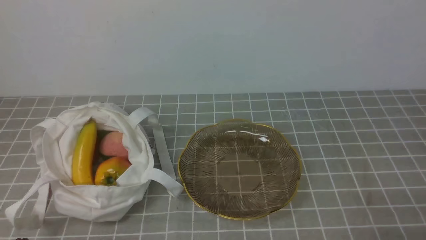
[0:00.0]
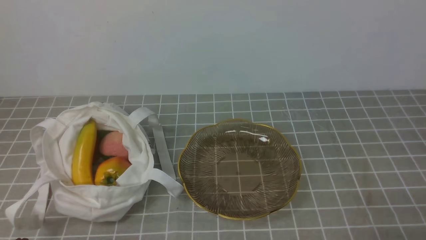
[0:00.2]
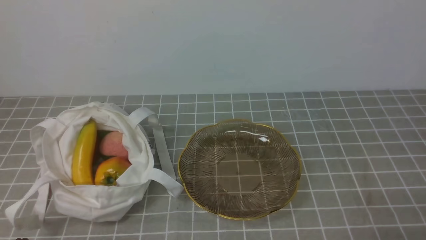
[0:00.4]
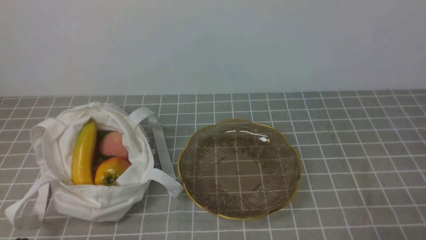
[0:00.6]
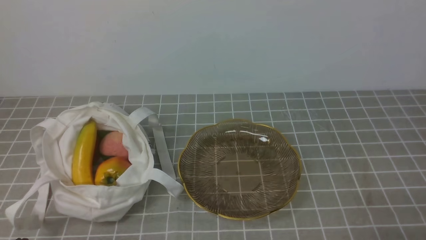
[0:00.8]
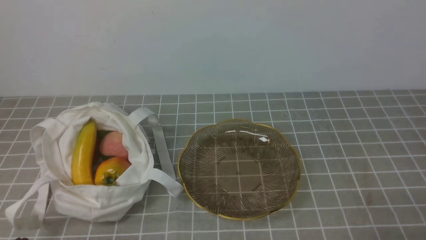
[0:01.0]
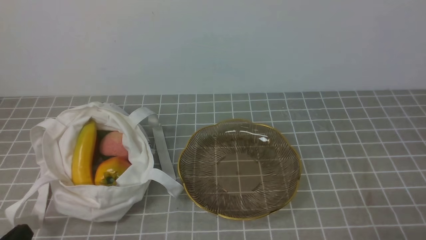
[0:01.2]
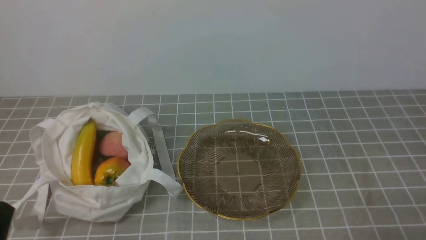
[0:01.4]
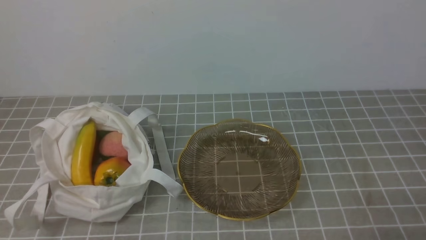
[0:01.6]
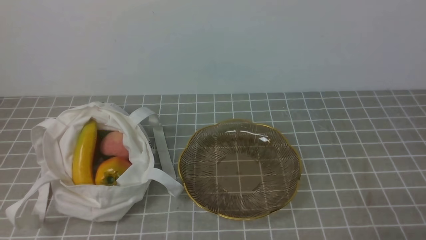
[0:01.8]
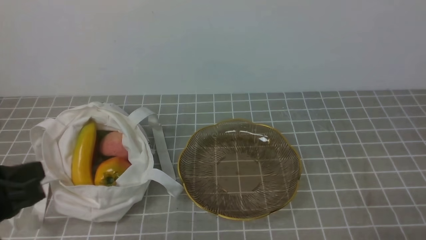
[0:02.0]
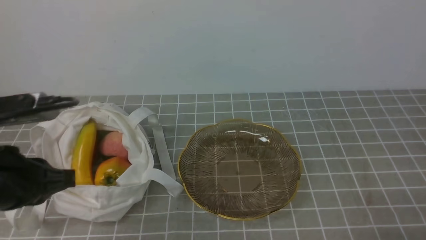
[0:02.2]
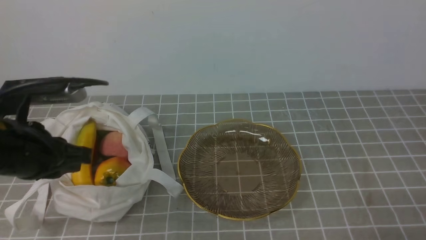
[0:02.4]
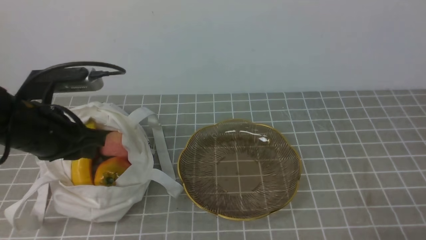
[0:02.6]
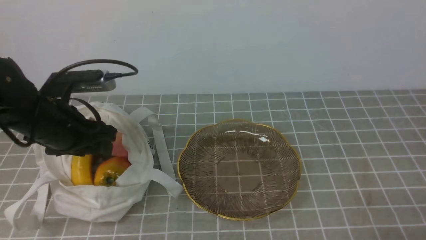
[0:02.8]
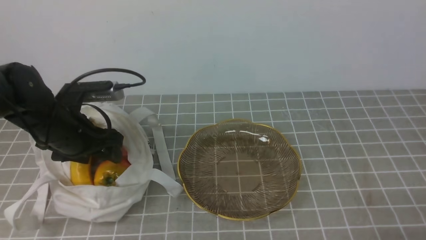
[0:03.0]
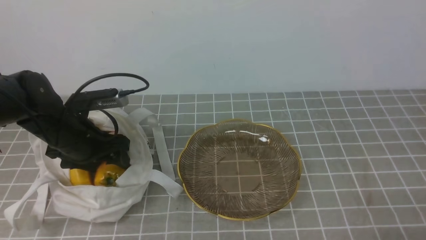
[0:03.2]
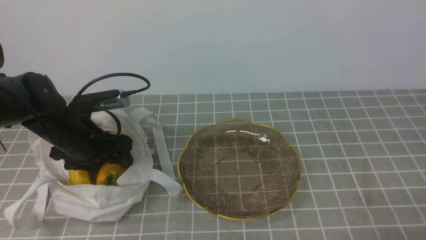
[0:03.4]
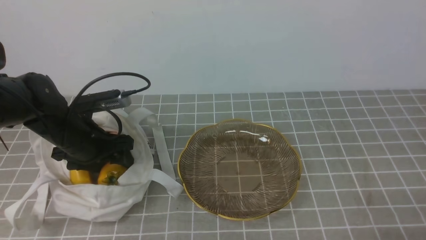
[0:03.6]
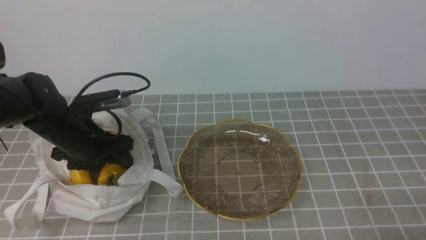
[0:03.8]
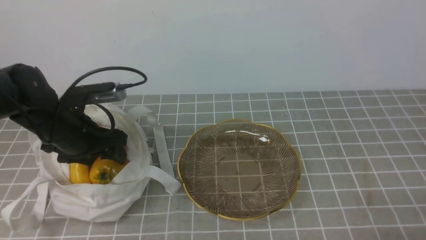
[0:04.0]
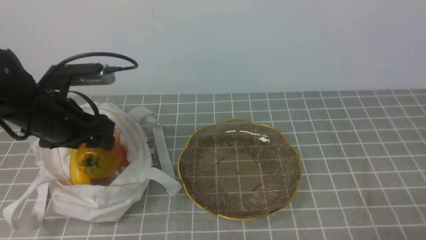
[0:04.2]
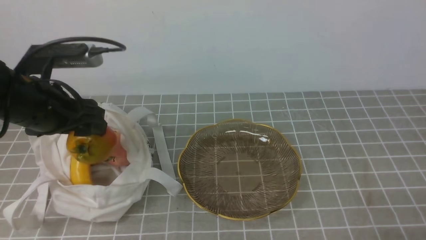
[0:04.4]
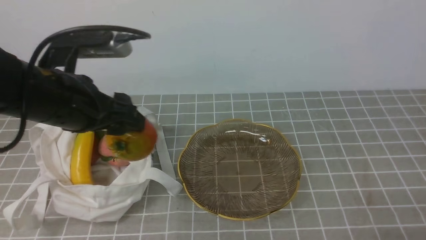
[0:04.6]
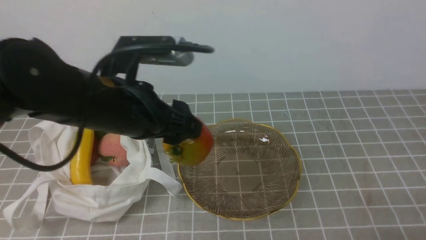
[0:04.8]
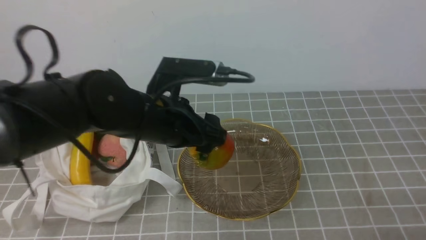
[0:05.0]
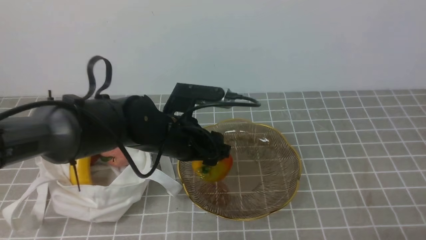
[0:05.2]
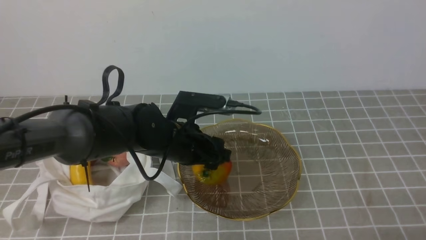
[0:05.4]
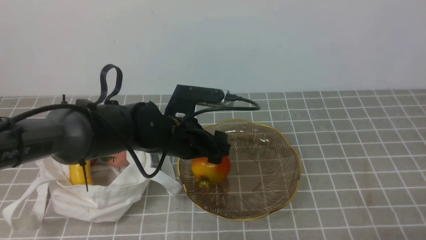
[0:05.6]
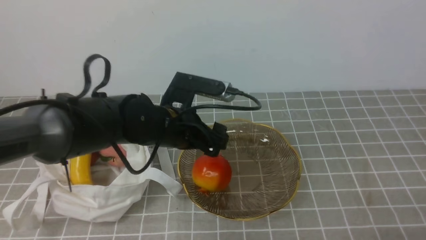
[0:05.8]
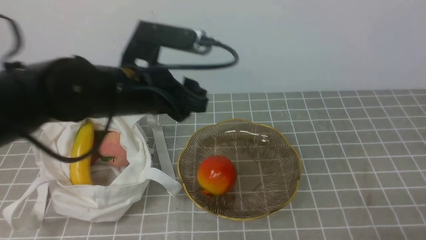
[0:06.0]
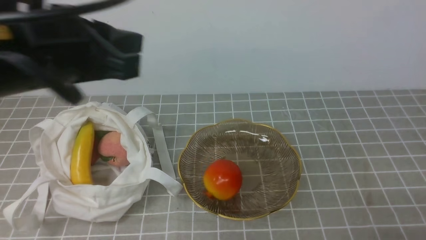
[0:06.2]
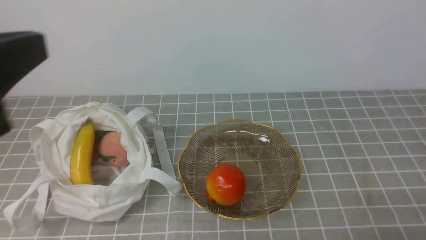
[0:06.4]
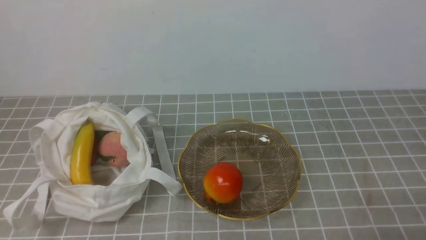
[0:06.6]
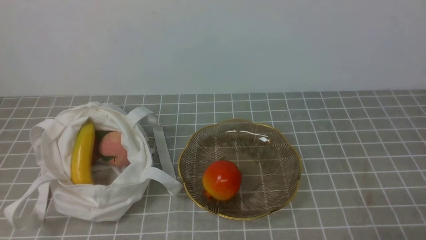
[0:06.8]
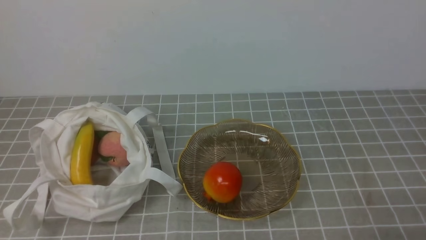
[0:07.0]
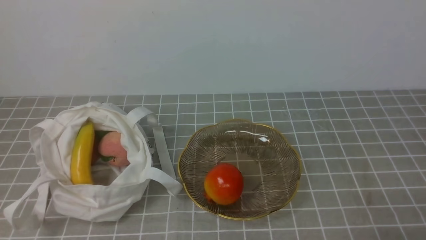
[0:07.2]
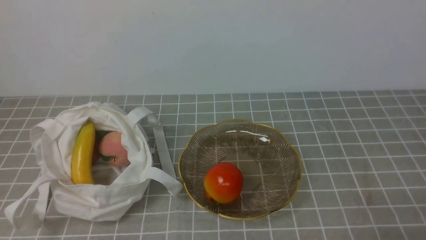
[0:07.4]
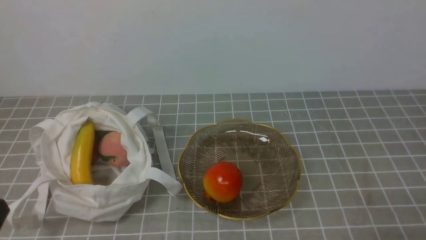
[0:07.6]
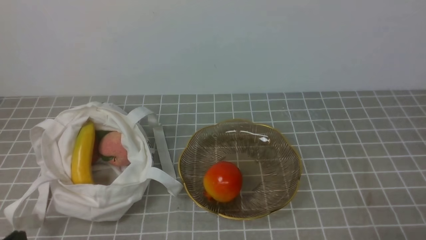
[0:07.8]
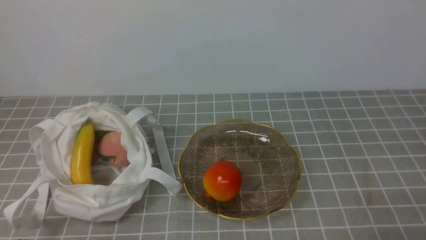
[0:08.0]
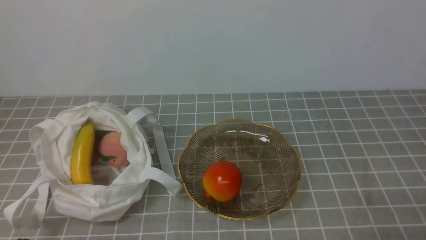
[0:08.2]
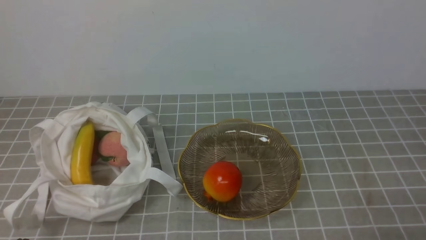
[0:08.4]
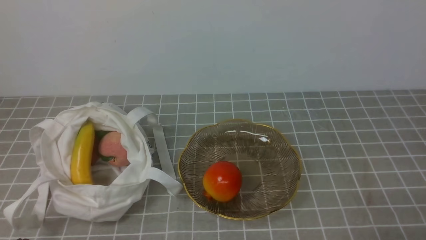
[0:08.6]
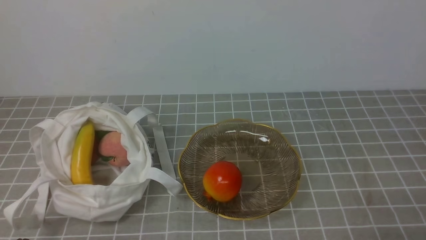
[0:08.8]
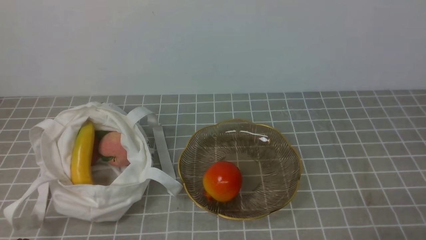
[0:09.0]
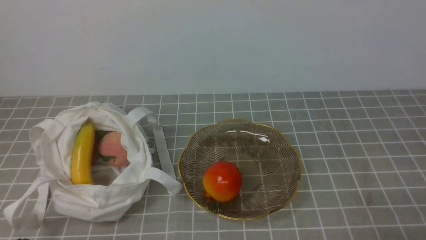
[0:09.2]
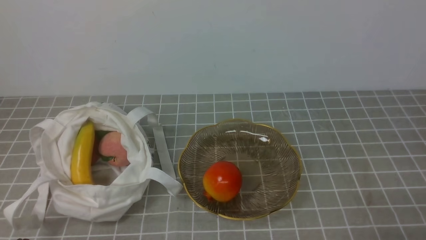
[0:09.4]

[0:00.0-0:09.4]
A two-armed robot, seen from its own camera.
Step, 0:00.0 to 0:03.8: use the left arm to grab a pomegranate from the bag.
Step, 0:04.2 to 0:05.4: use the left arm to put the pomegranate into the empty plate on the right.
0:01.6 to 0:03.2: The left gripper shifts some 30 cm forward, and opens.
0:03.2 to 0:04.8: The left gripper is displaced to the right, upward and backward by roughly 15 cm.
0:04.8 to 0:06.2: The left gripper shifts some 15 cm upward and backward, and closes up.
0:06.2 to 0:07.8: The left gripper heads downward, backward and to the left, covering roughly 25 cm.

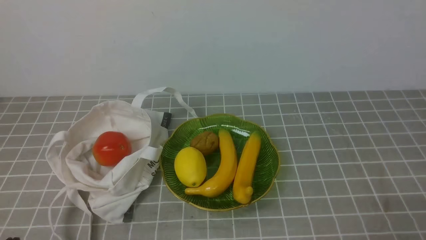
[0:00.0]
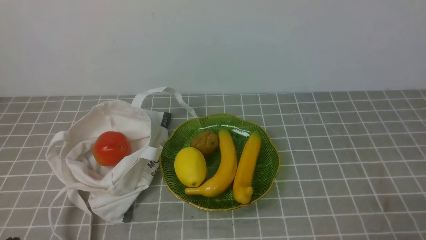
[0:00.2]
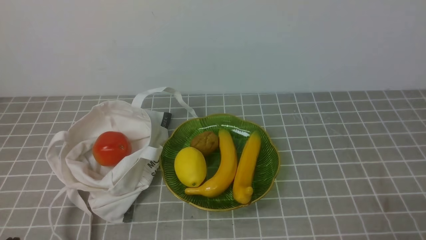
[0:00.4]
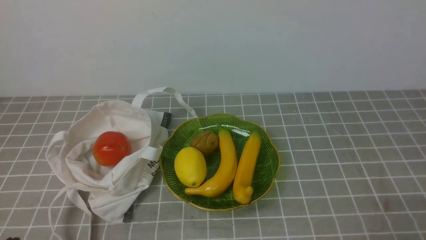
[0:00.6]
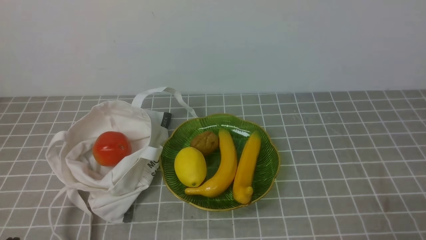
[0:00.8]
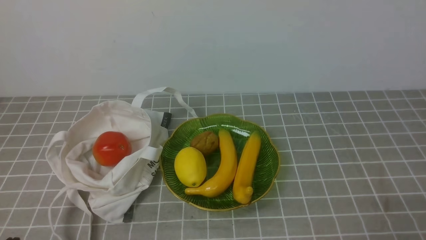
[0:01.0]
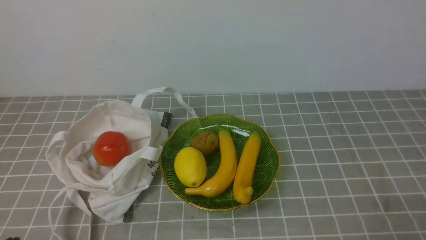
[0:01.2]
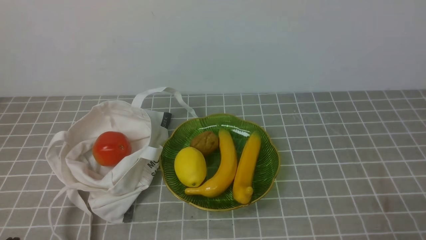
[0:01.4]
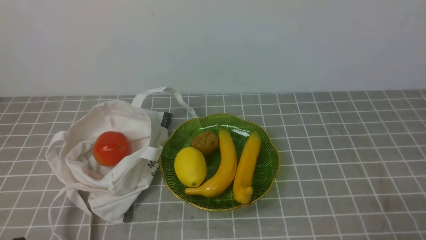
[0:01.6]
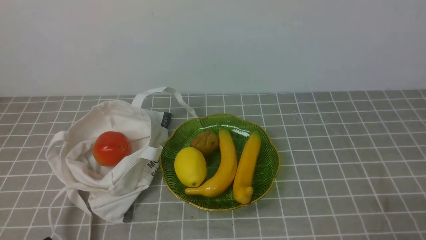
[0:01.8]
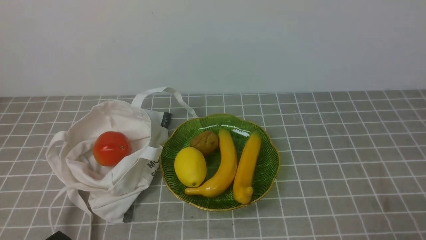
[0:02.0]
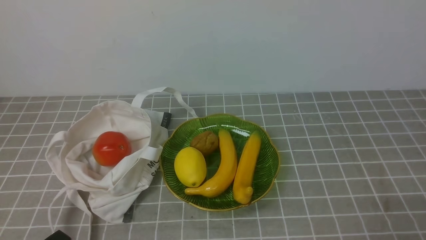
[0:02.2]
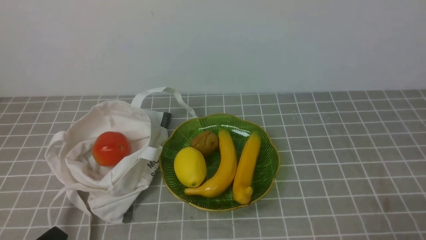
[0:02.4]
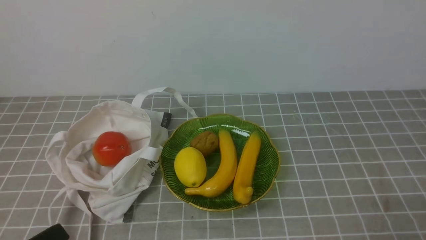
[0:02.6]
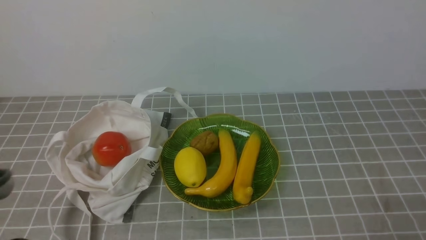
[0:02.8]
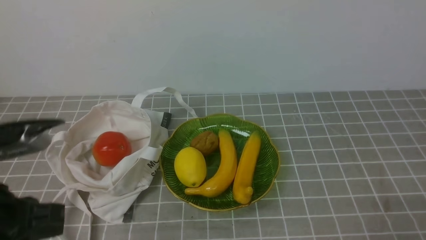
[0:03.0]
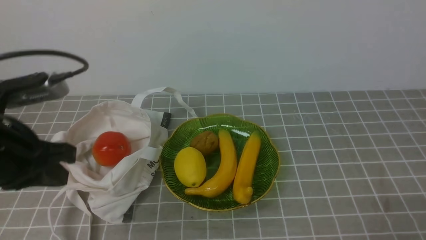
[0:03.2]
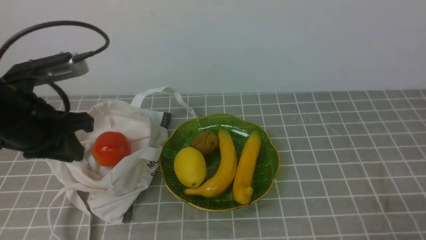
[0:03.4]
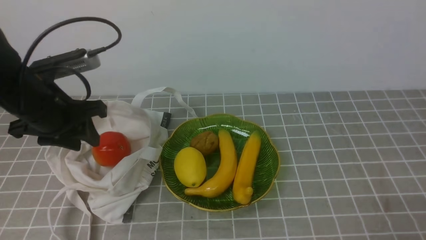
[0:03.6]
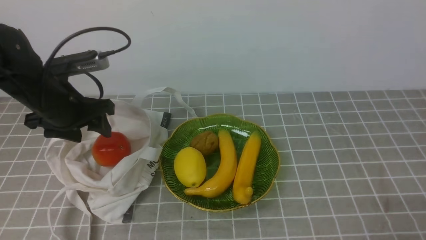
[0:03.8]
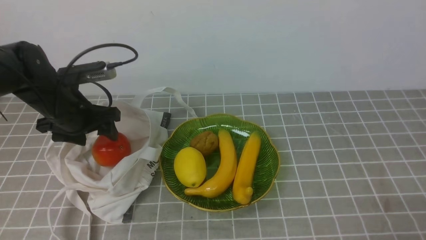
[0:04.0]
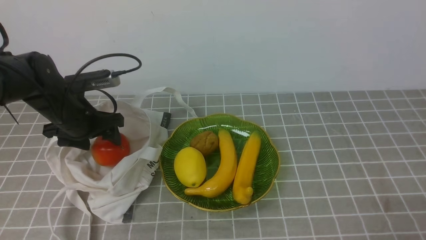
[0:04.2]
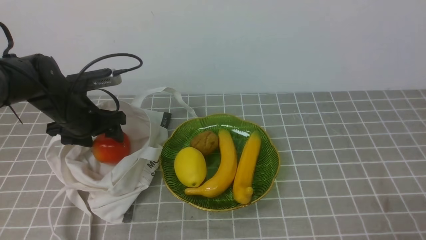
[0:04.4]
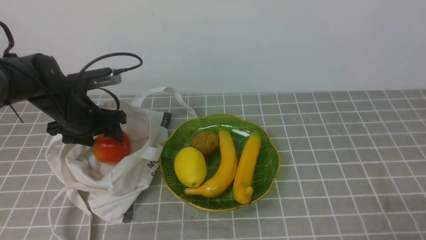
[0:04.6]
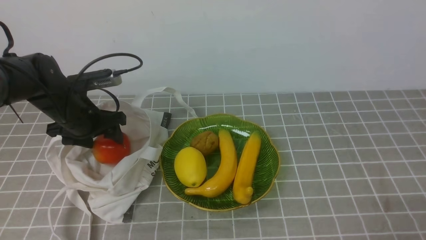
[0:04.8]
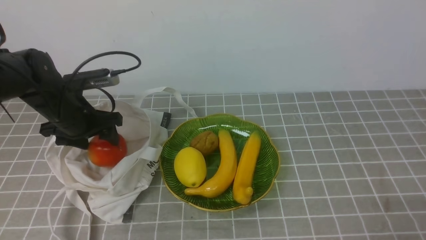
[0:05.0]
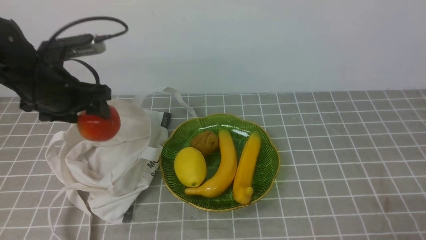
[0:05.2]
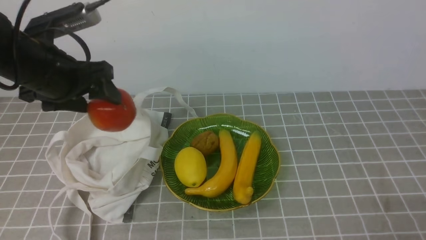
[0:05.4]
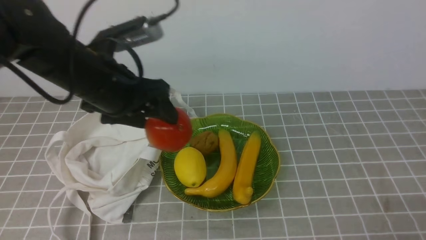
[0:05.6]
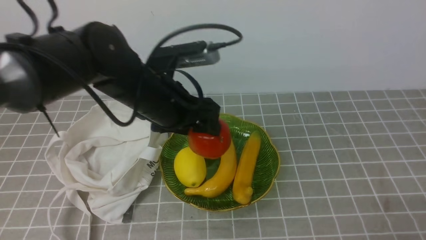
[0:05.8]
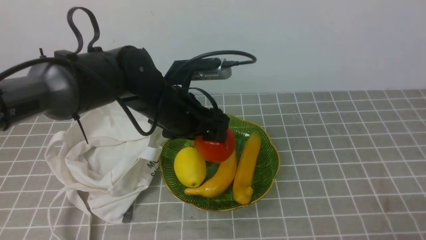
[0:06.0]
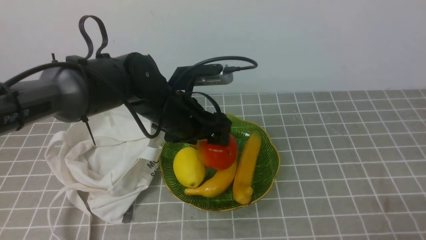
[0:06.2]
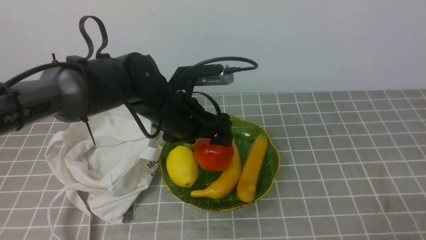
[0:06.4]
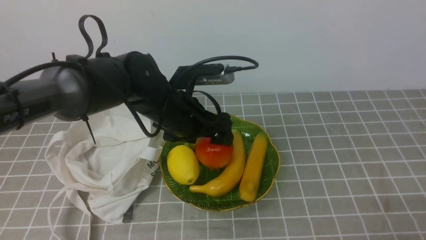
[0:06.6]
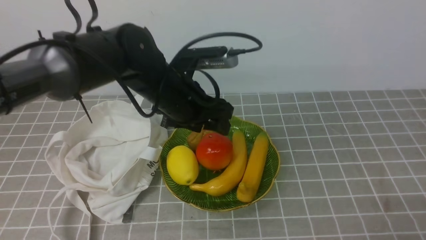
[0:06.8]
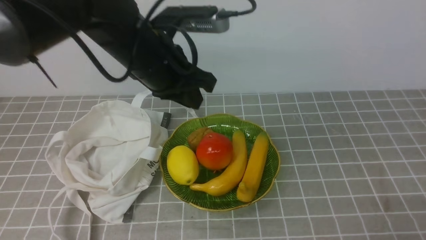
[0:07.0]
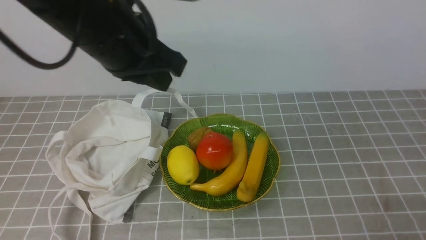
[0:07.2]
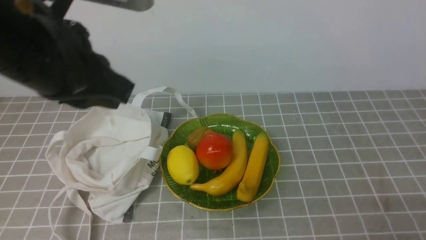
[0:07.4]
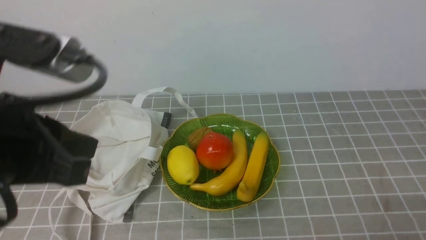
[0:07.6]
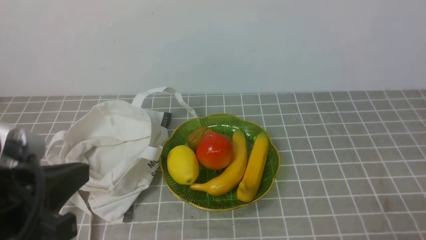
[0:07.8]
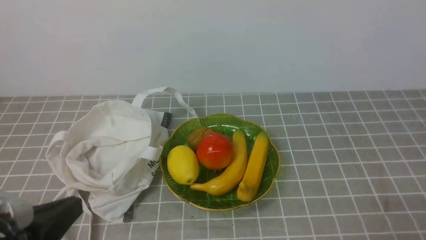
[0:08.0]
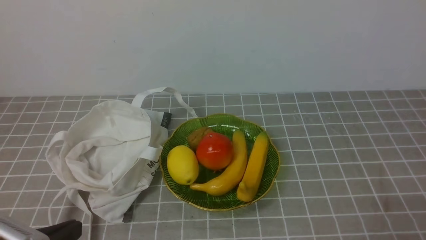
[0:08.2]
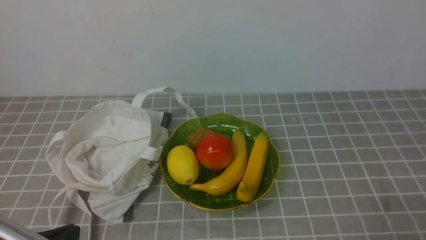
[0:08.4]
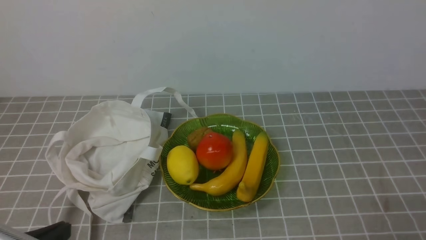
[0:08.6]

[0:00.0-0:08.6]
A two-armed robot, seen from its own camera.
Step, 0:00.0 to 0:04.8: use the left arm to grab an apple from the bag.
Step, 0:05.0 to 0:06.4: use the left arm to put the apple into the empty plate on the right.
0:02.8 to 0:04.4: The left gripper goes about 30 cm forward, and opens up.
0:04.4 to 0:05.8: The left gripper heads to the right, upward and backward, covering some 15 cm.
0:05.8 to 0:07.2: The left gripper is displaced upward by roughly 5 cm, and closes.
0:07.2 to 0:08.6: The left gripper travels backward, downward and to the left by roughly 30 cm.
